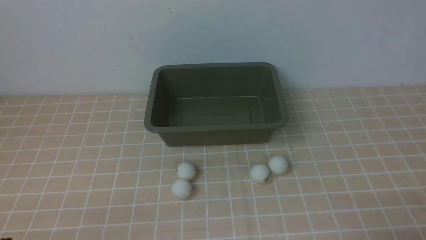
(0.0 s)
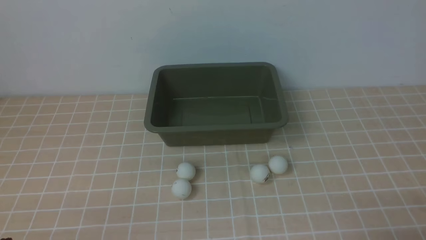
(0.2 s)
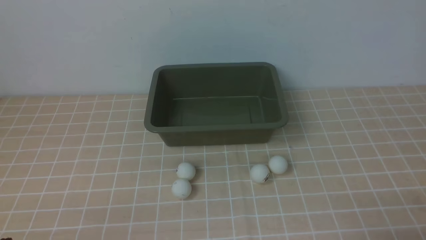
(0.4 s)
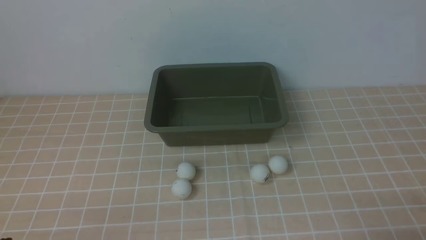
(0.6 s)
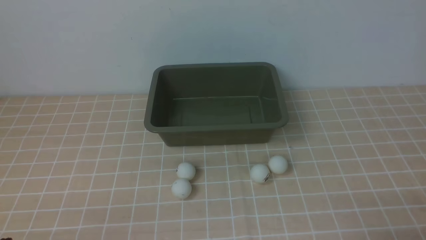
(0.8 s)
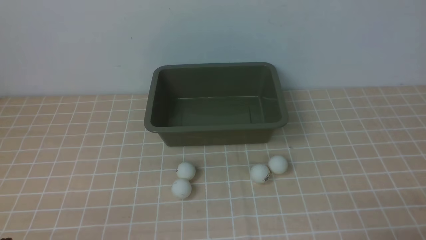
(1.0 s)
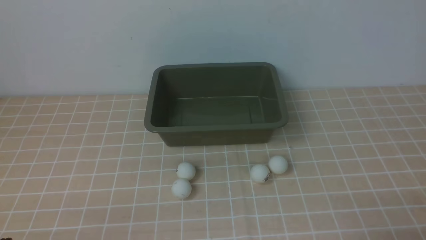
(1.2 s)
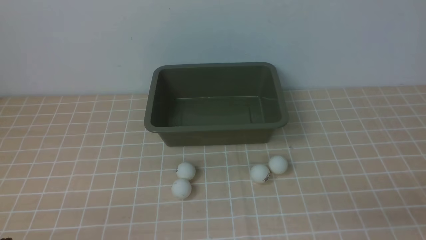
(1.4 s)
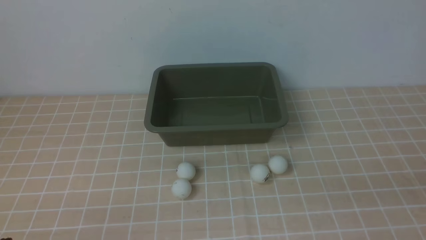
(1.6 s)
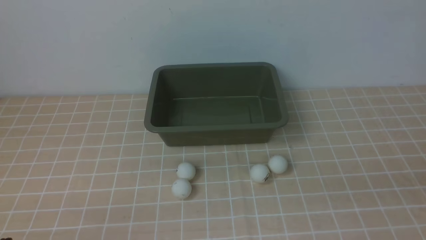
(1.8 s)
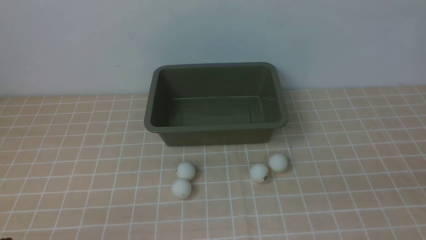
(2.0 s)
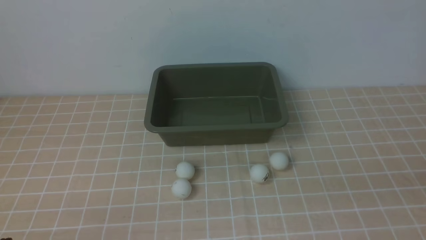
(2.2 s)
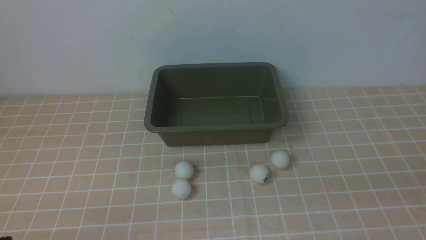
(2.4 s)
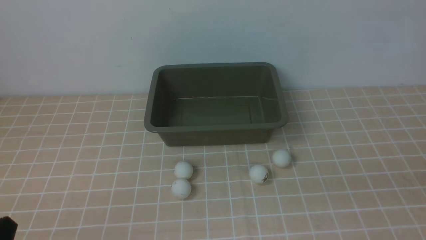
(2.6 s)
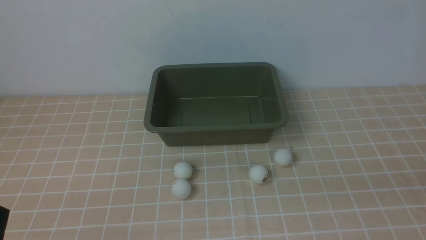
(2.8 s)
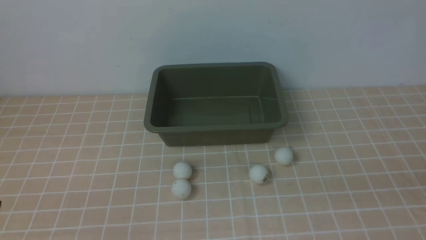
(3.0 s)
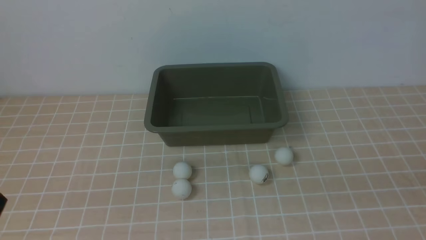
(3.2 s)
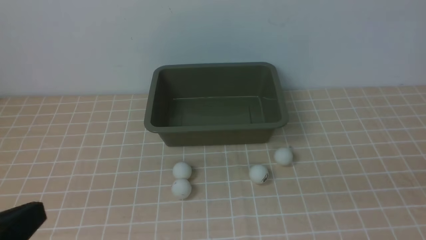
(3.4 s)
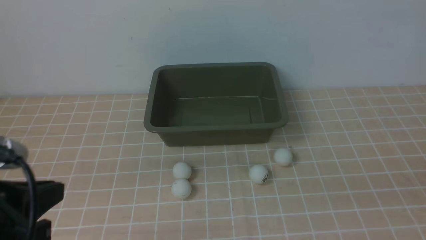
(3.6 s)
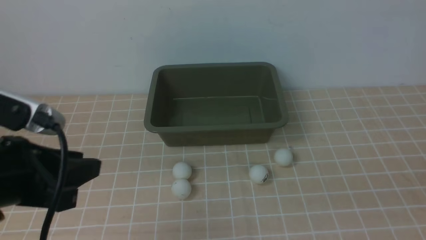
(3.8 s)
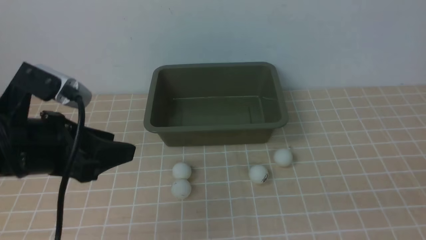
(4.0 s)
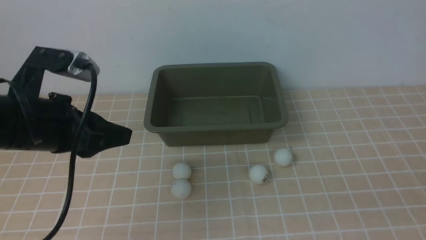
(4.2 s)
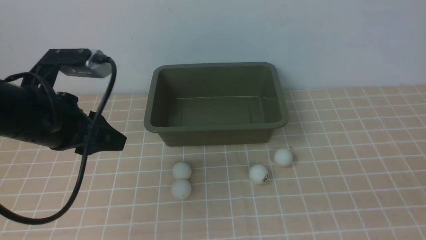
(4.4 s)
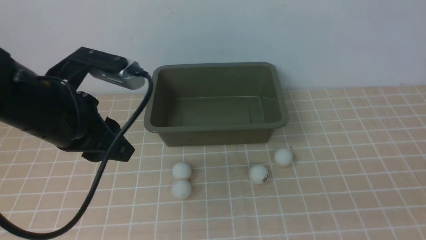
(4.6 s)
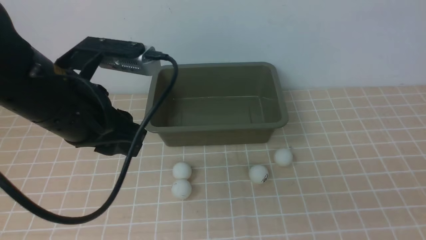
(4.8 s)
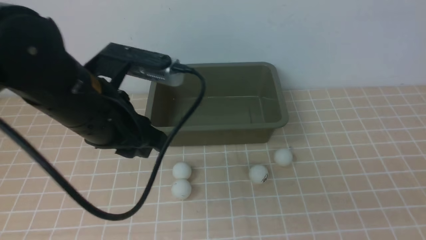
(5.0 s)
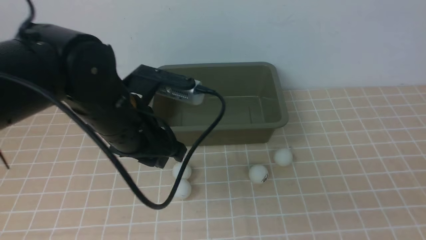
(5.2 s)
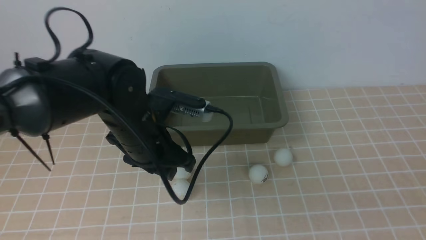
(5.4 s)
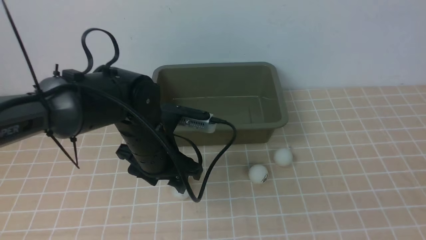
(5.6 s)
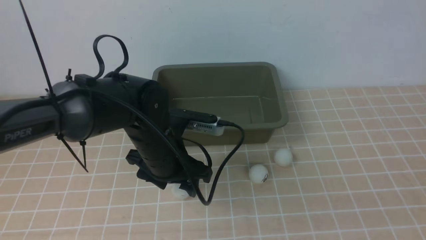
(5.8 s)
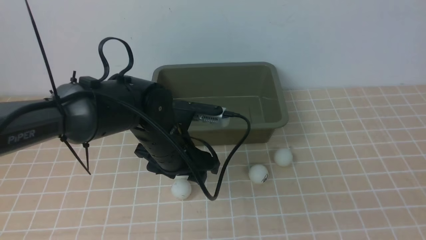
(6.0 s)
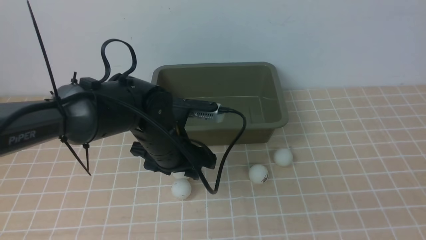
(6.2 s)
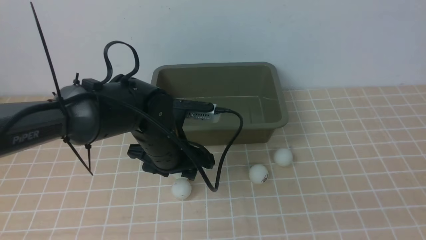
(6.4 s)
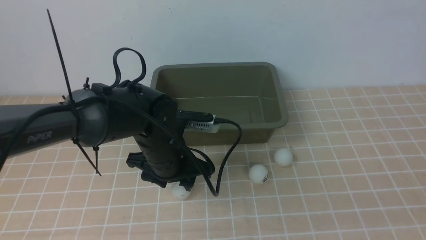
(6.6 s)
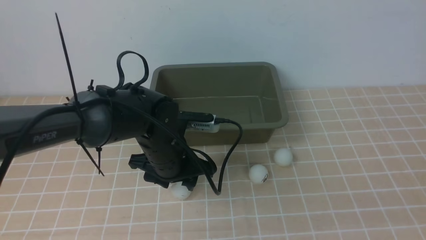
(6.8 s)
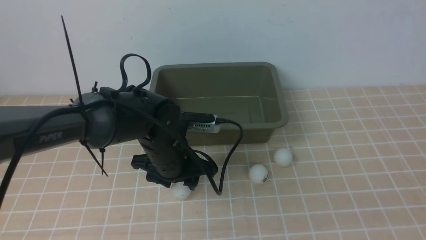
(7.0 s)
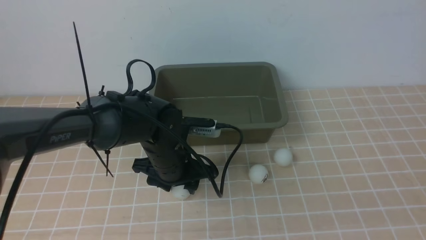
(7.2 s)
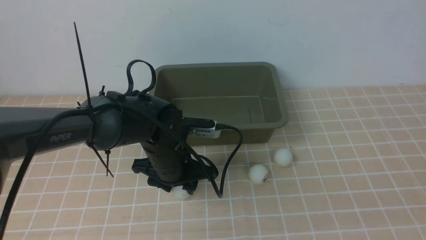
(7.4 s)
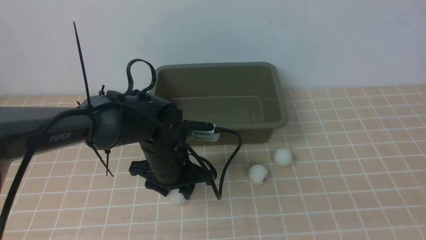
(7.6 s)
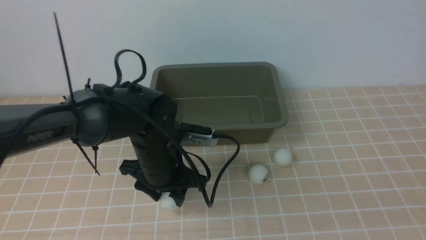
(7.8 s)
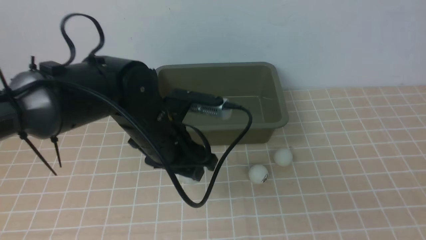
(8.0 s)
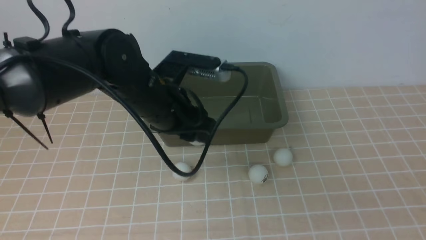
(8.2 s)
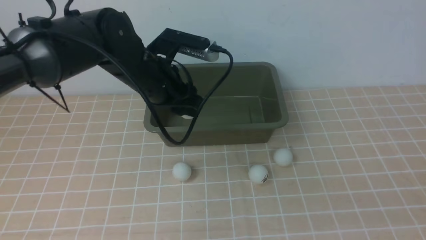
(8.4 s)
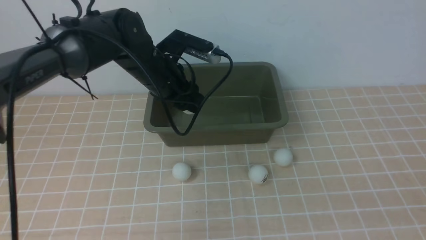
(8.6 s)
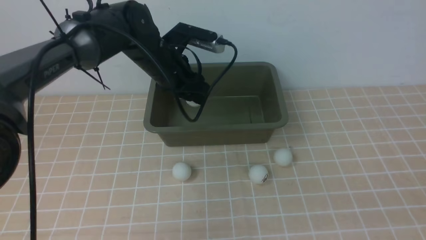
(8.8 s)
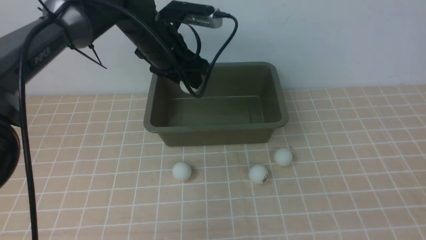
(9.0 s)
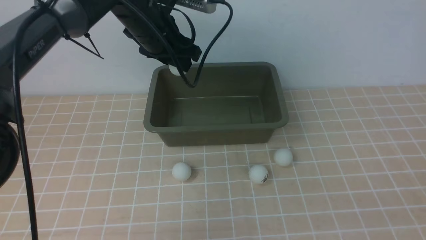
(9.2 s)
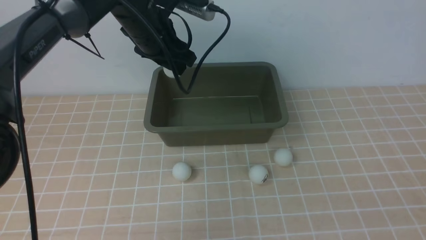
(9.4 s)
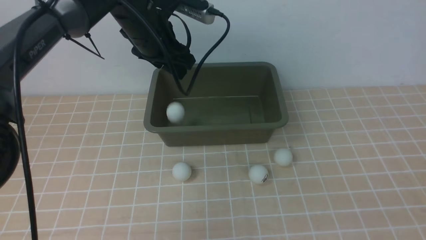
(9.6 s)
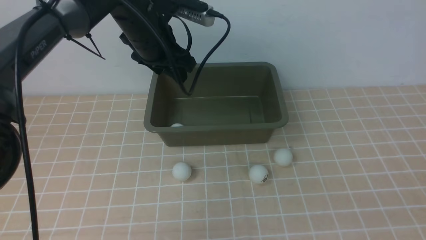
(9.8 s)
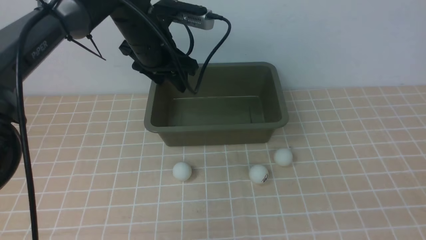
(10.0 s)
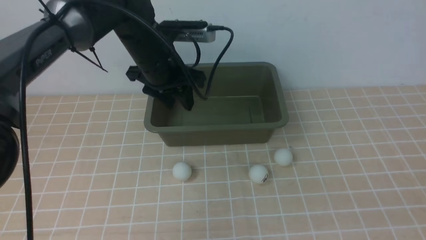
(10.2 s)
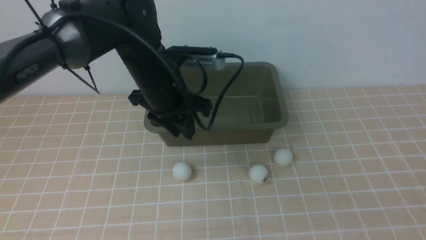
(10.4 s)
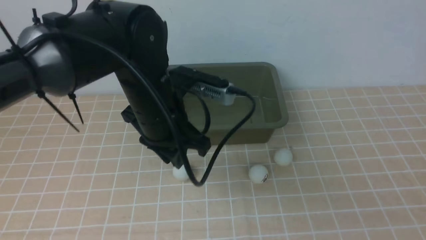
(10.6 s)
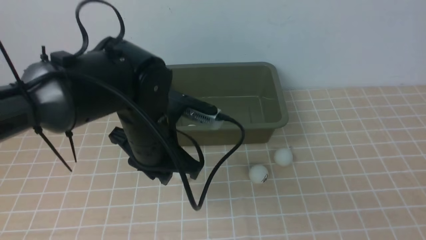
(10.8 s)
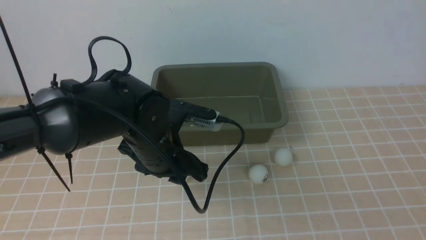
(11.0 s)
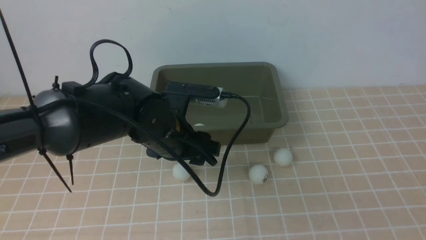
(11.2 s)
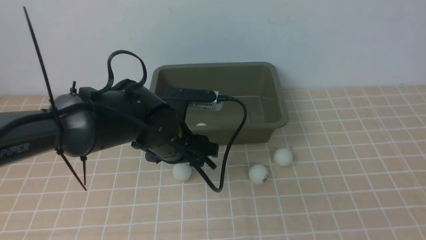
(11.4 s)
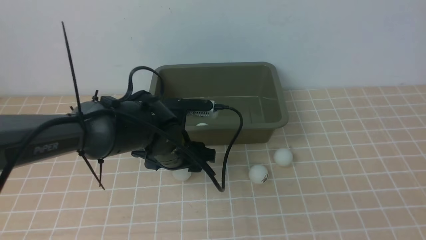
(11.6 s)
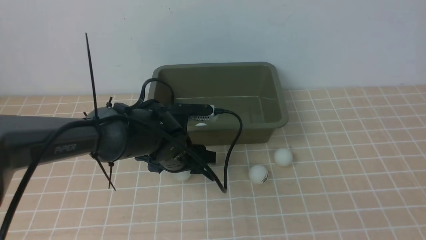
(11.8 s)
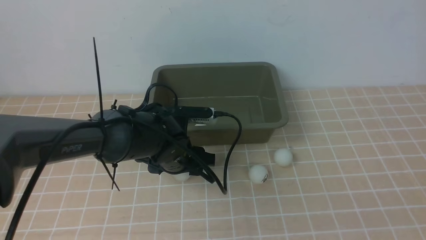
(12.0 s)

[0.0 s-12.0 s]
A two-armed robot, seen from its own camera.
Step, 0.0 to 7.8 s: use the left arm to clamp the table tennis ball closest to it.
Step, 8.0 to 9.2 s: use the left arm to put the table tennis ball into the box.
3.0 to 4.4 s: The left gripper goes some 20 cm forward and upward, and opens its fingers.
4.4 to 6.0 s: The left gripper is displaced to the right, downward and forward by some 20 cm, and opens.
6.0 to 7.6 s: The grippers stay close to where they were, moving slightly.
7.6 to 9.0 s: The left gripper goes some 20 cm upward and forward.
9.0 to 10.4 s: The left gripper heads backward, covering about 10 cm.
10.4 to 12.0 s: The left gripper travels downward by some 15 cm, and opens.

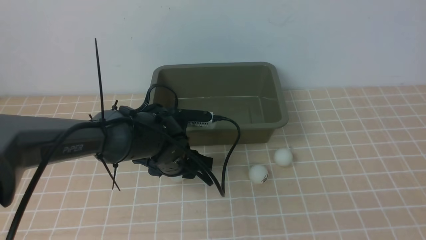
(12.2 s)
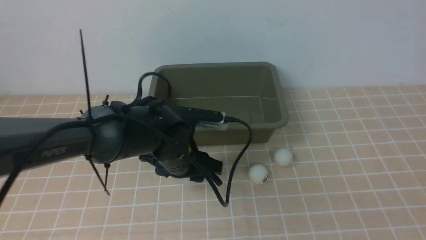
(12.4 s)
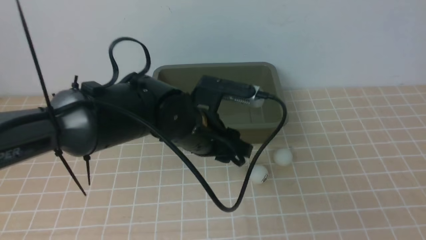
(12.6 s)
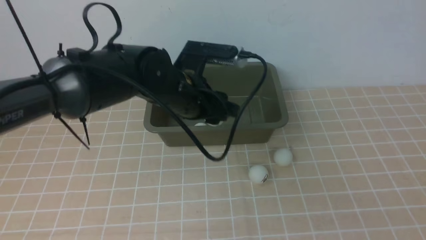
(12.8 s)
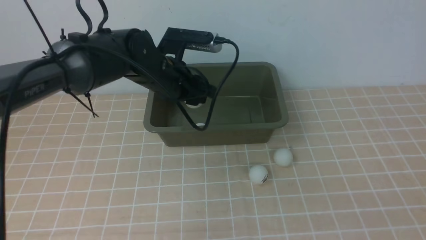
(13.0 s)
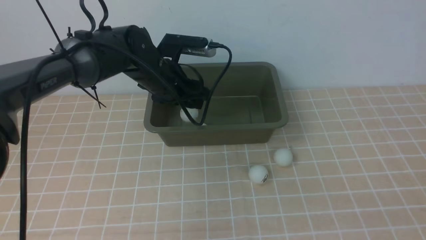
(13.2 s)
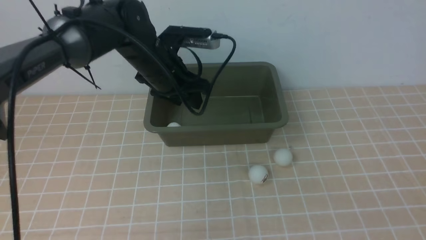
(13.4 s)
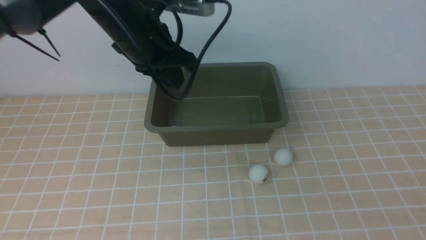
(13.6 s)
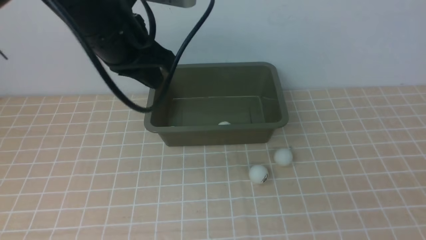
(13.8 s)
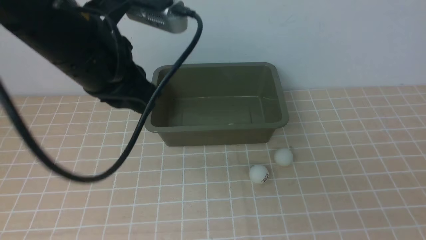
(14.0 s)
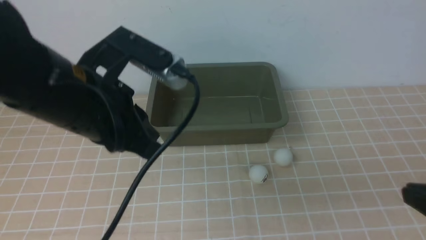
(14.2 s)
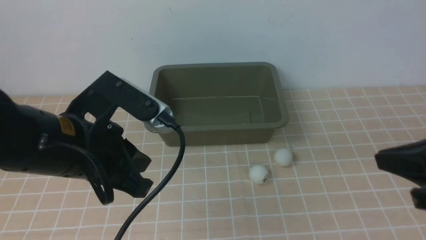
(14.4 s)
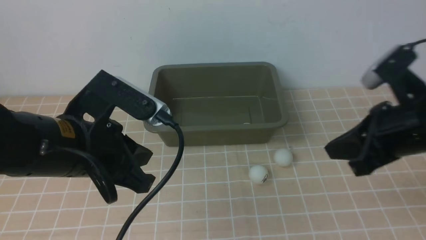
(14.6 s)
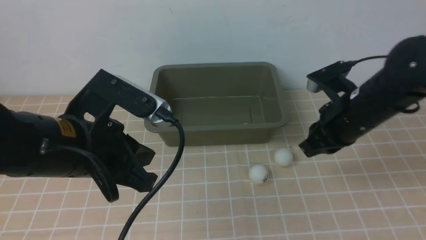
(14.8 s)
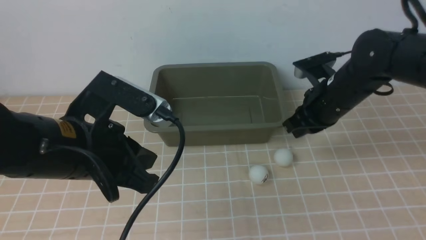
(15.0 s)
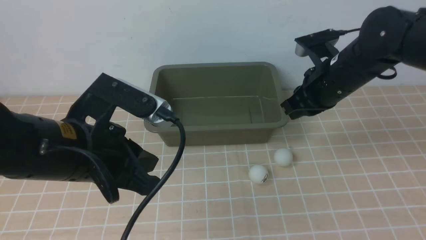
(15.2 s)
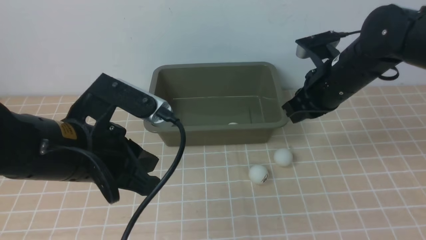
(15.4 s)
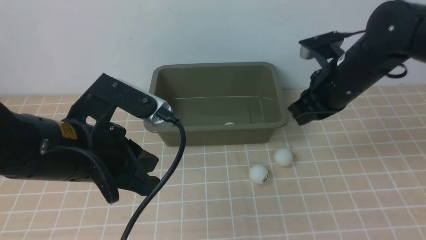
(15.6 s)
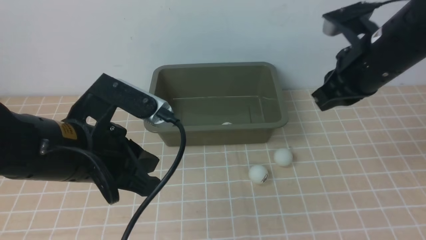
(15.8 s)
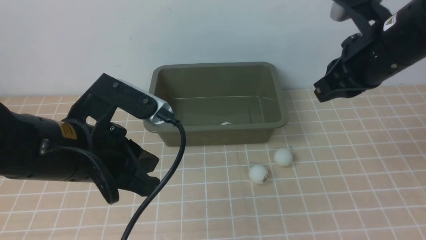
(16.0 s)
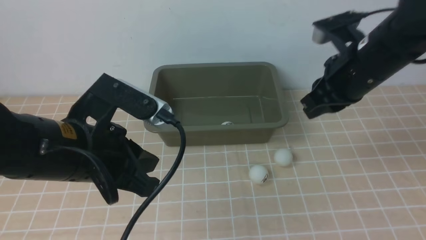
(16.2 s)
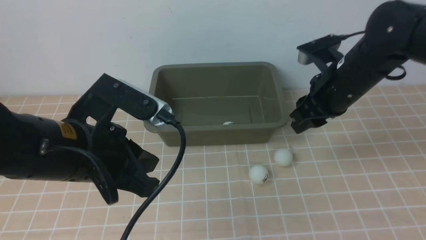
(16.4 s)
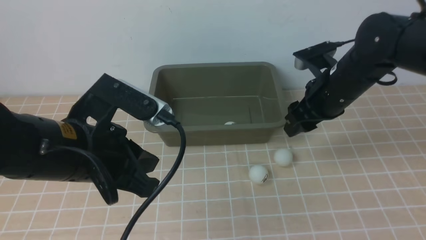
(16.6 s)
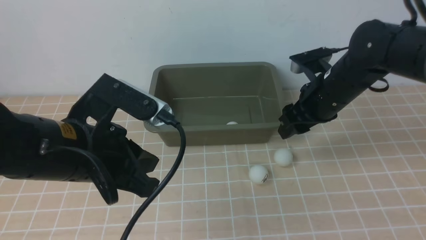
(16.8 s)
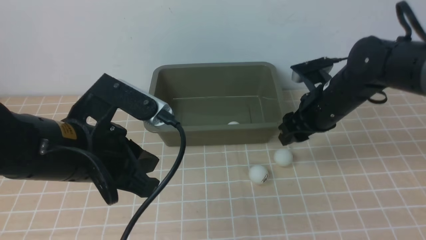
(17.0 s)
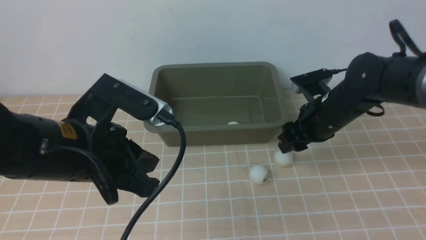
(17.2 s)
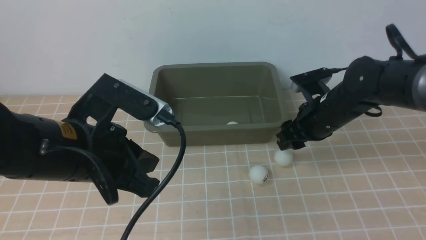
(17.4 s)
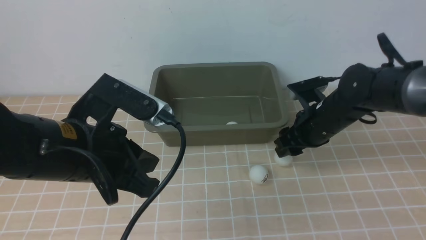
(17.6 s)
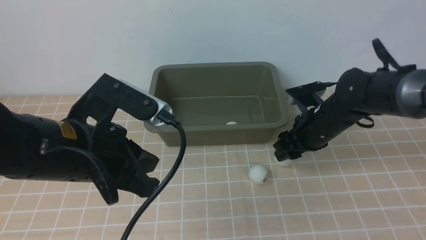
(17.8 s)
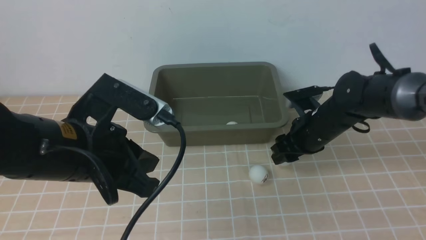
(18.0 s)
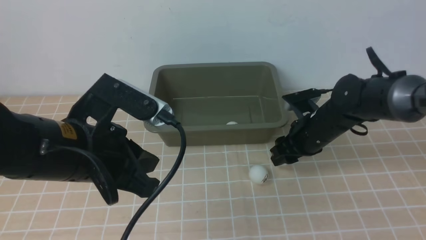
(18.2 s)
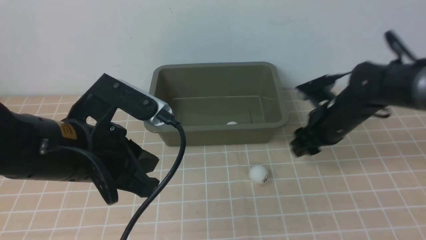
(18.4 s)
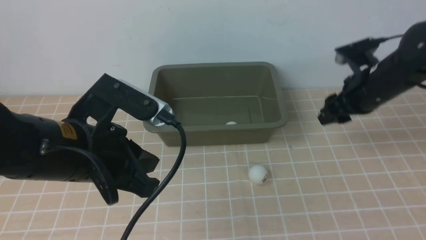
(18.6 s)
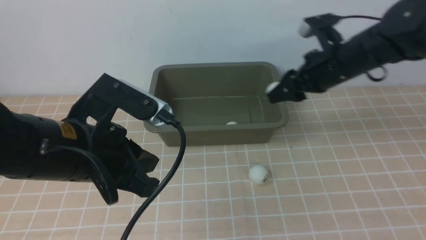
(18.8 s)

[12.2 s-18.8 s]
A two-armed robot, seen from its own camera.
Step, 12.8 to 13.4 s: use the left arm to put the table tennis ball into the box.
Step, 13.8 to 18.6 s: use the right arm to clamp the table tennis ball closest to it.
12.2 to 13.8 s: The left gripper heads upward, covering some 20 cm, and closes.
13.8 to 15.4 s: The right gripper goes approximately 35 cm forward; the left gripper travels backward and downward by approximately 15 cm.
15.4 to 17.2 s: The right gripper goes approximately 5 cm downward, and opens up.
17.2 to 18.8 s: The right gripper heads upward, covering some 5 cm.
